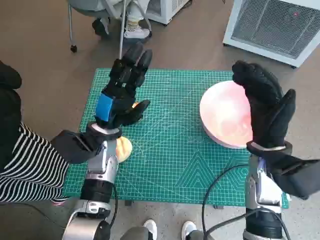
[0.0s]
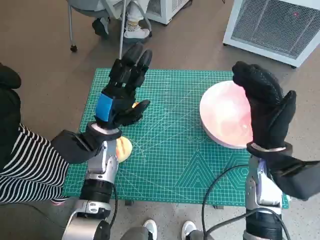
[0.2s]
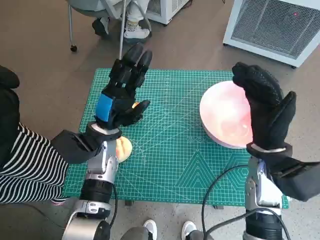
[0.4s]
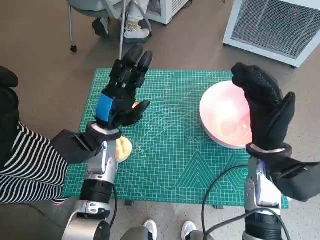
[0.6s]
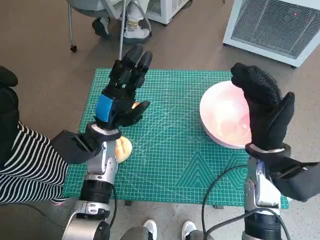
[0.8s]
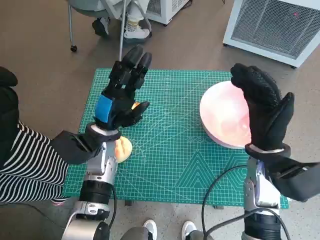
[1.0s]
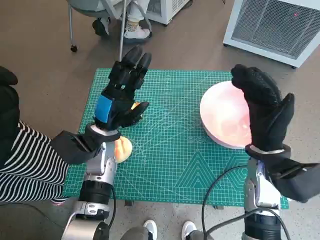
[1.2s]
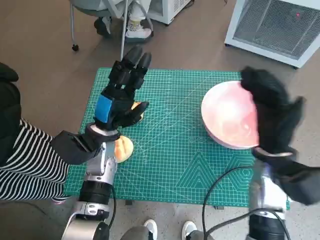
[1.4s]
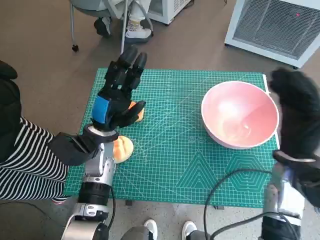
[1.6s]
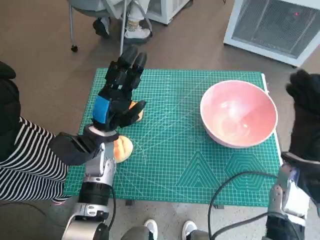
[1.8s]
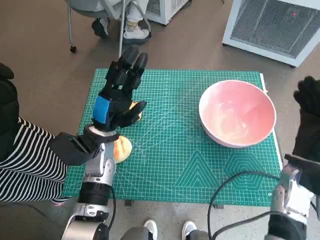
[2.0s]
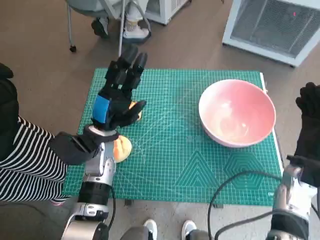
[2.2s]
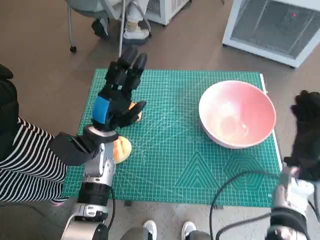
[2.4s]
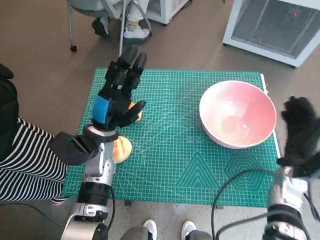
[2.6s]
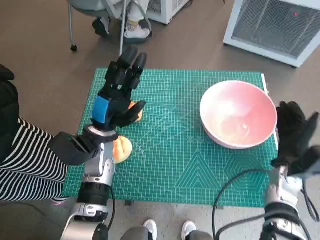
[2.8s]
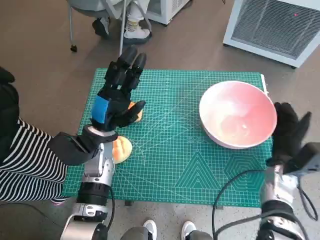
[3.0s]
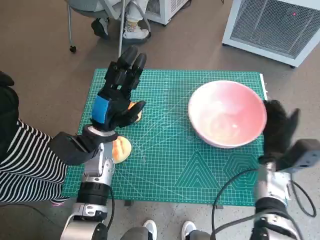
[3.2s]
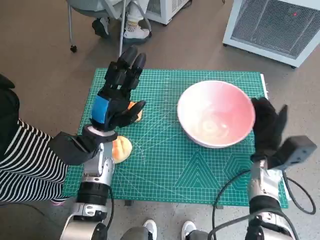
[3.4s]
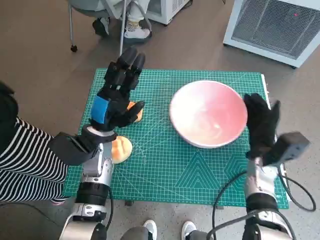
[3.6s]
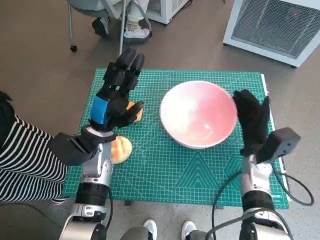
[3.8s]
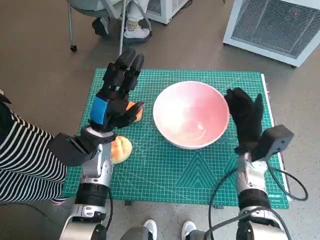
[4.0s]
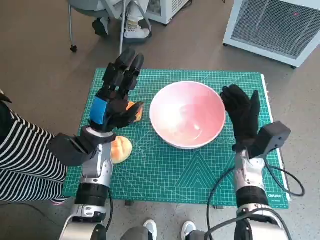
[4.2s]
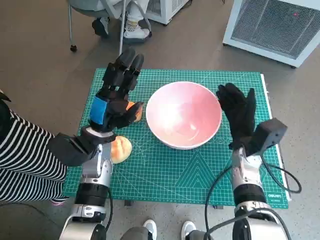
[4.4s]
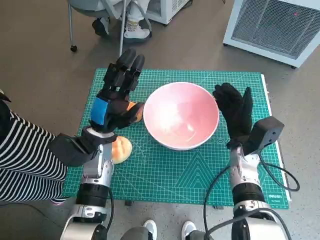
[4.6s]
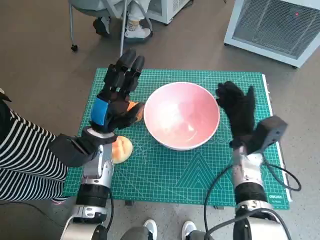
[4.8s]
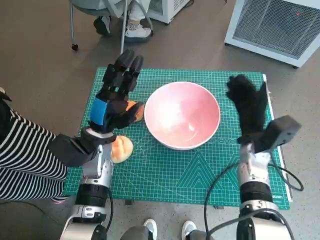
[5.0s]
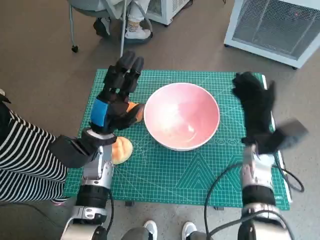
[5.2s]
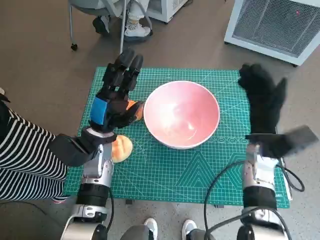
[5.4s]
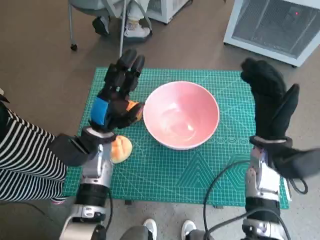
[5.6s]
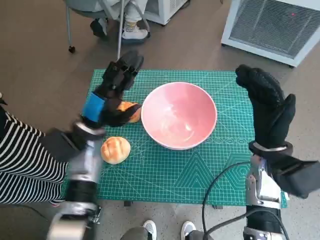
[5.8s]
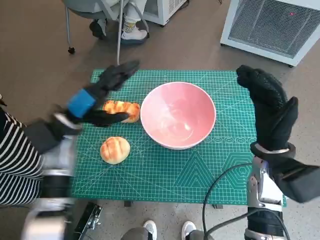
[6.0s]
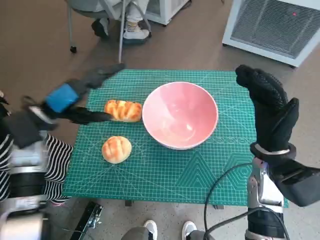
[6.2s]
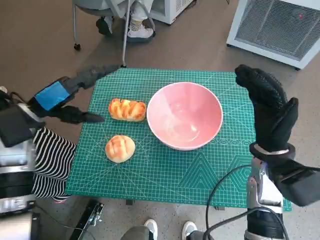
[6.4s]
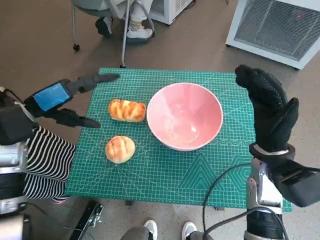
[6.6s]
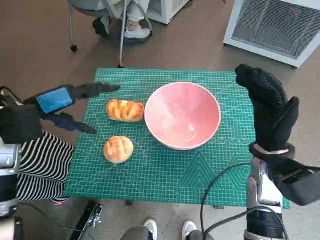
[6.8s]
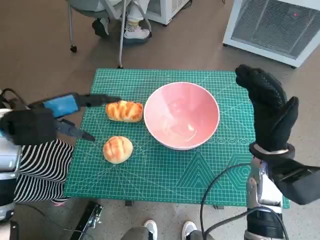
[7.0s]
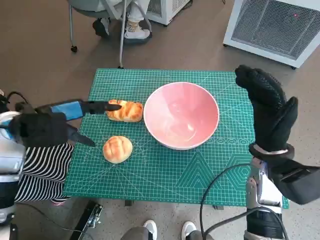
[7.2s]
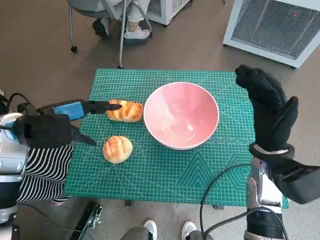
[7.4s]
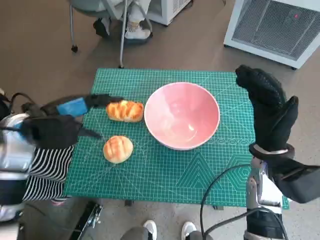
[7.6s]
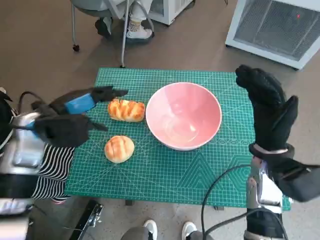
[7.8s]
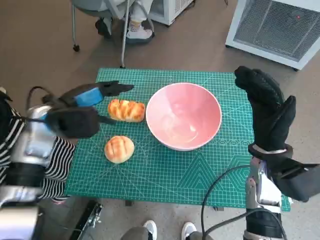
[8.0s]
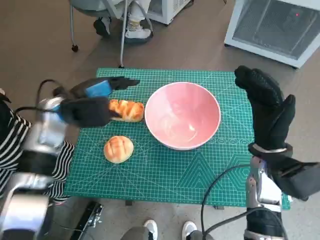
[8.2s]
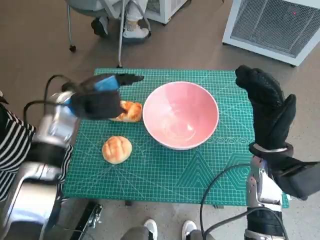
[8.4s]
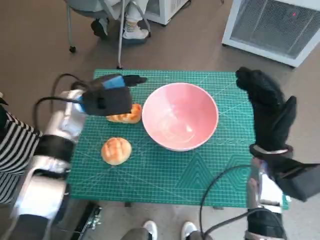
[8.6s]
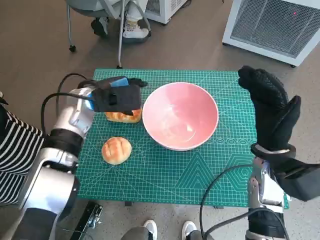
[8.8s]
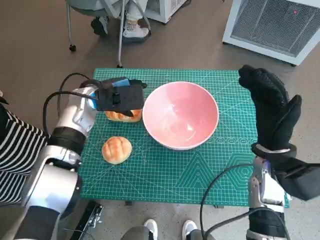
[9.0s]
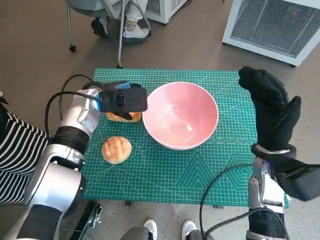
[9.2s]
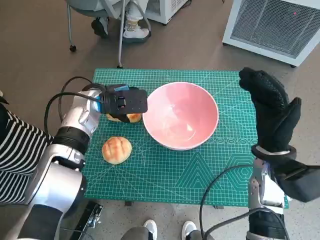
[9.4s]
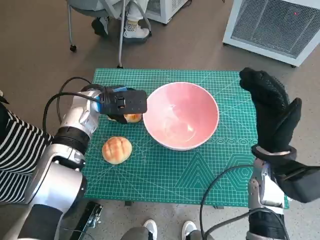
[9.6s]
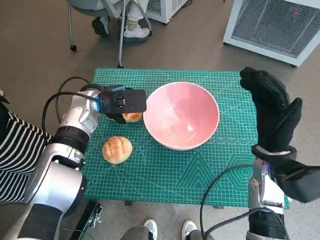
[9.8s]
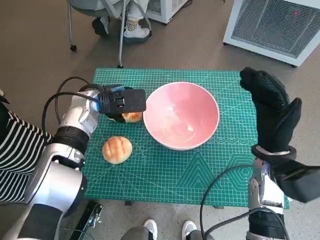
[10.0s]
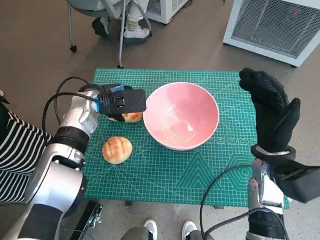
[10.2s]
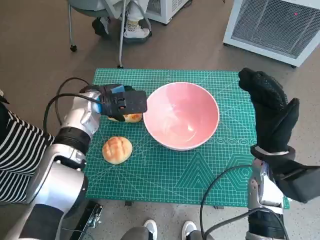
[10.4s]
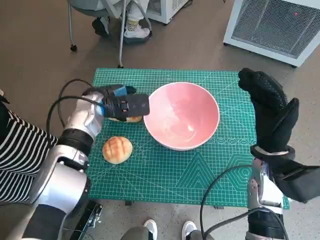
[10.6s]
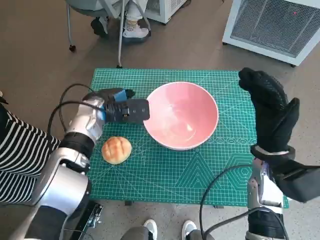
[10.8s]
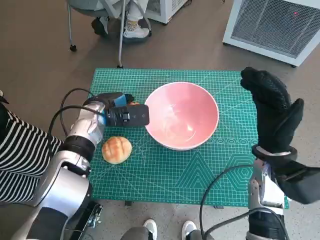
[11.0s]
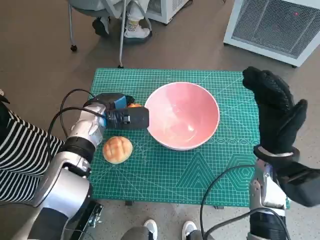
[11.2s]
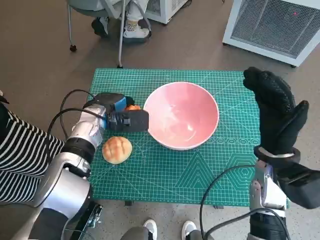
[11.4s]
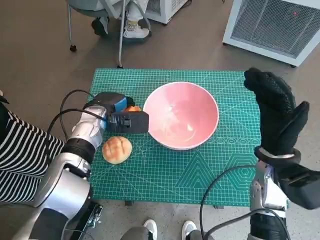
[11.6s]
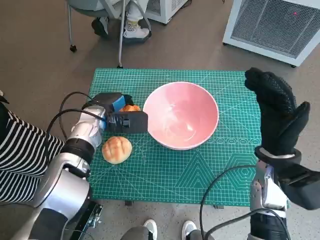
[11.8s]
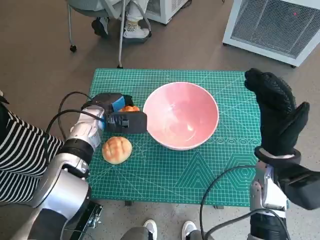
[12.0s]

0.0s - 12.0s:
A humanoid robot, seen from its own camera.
Task of the whole recording: Push the bowl into the center of the table and put the bread into the bowl.
Step, 0.0s - 5.0s: Move the pink bowl to the center of table with right hand.
Step, 5.2s - 11.4s: Grasp the long bread with left hand.
1.6s - 3.0s: The right hand moves downward, about 10 cm.
3.0s - 4.4s: The right hand travels to the left by roughly 10 cm.
4.4s - 6.0s: The right hand shifts some 10 cm upward. Meanwhile the left hand ends up about 5 cm from where it was.
6.0s - 7.6s: The left hand shifts roughly 5 cm upward.
7.6s - 9.0s: The left hand is displaced forward and to the right by about 10 cm.
9.0s - 10.4s: There are only small adjustments of the hands.
10.4s - 12.0s: There are only small adjustments of the hands.

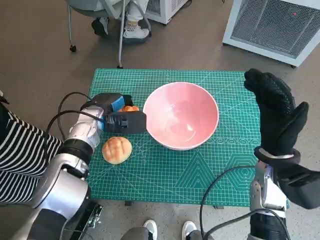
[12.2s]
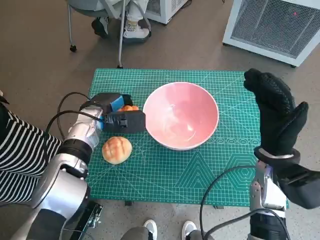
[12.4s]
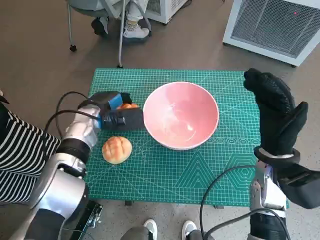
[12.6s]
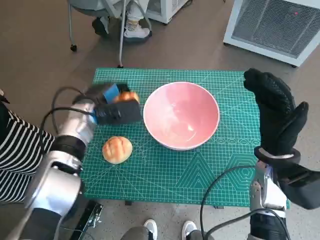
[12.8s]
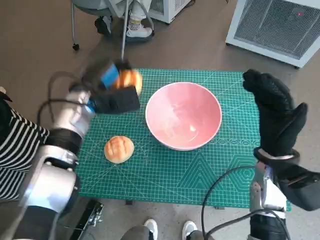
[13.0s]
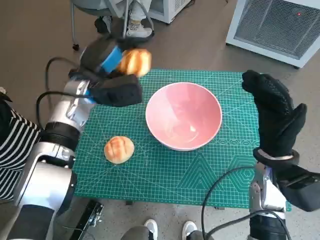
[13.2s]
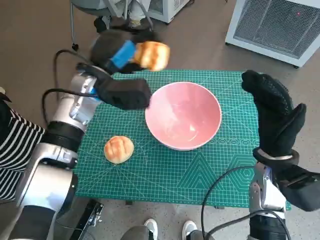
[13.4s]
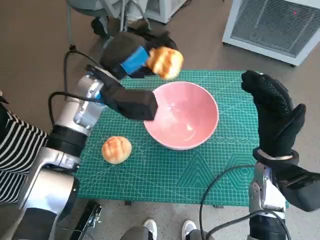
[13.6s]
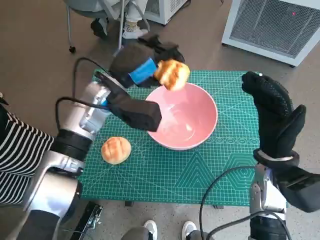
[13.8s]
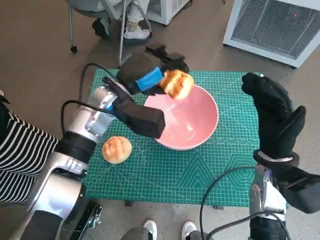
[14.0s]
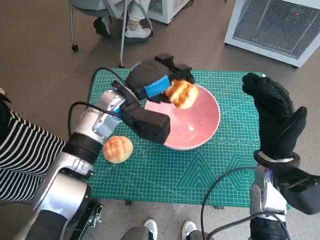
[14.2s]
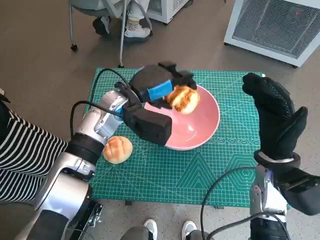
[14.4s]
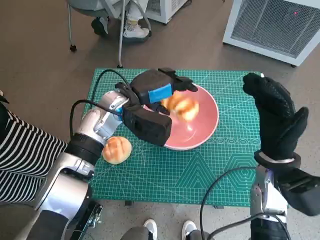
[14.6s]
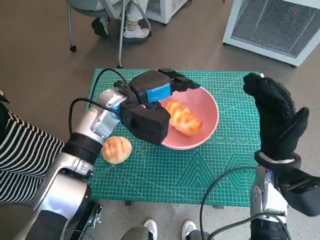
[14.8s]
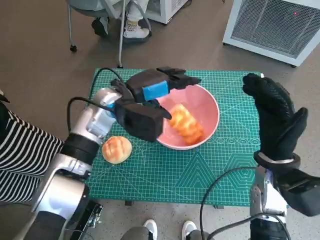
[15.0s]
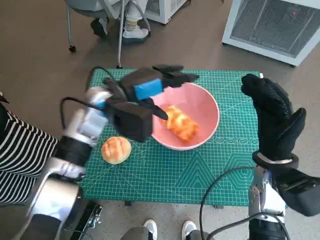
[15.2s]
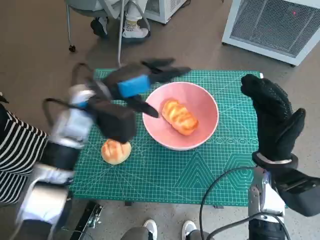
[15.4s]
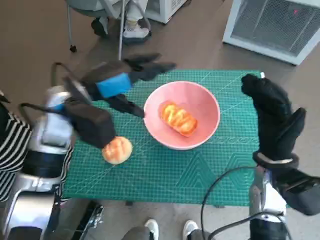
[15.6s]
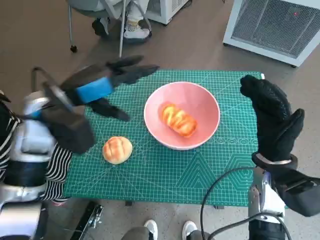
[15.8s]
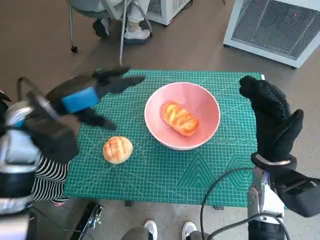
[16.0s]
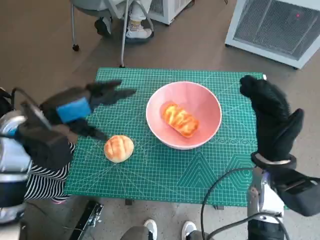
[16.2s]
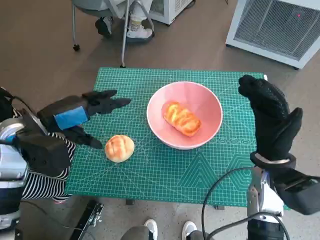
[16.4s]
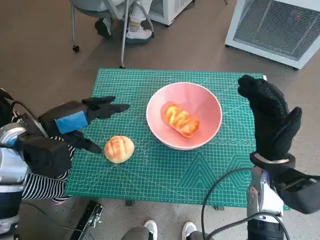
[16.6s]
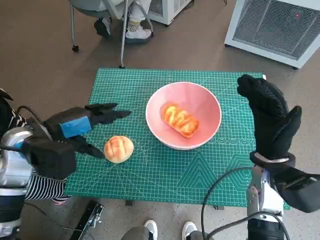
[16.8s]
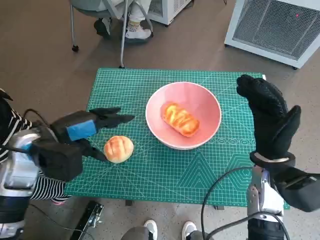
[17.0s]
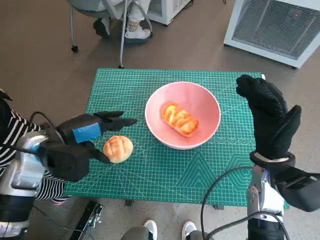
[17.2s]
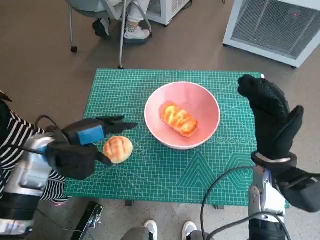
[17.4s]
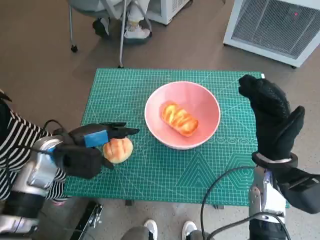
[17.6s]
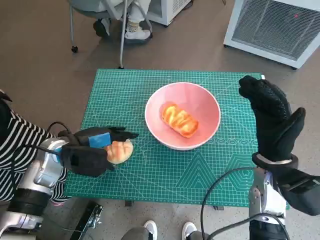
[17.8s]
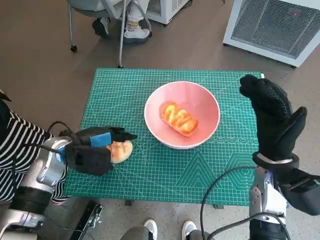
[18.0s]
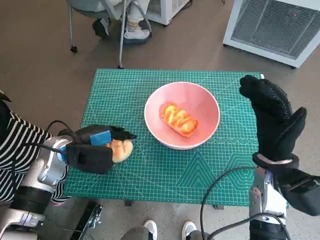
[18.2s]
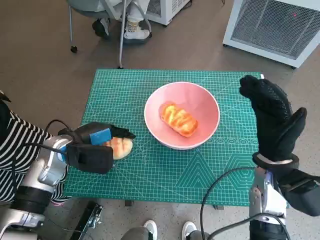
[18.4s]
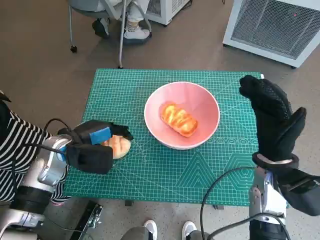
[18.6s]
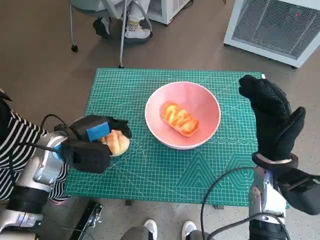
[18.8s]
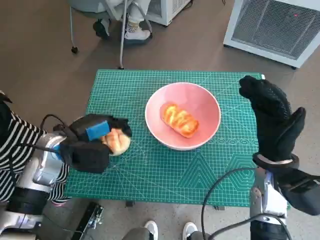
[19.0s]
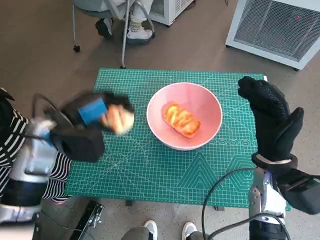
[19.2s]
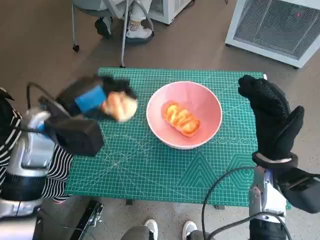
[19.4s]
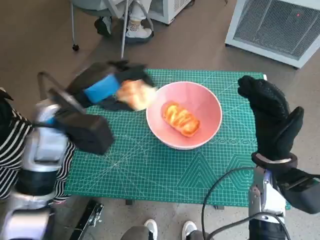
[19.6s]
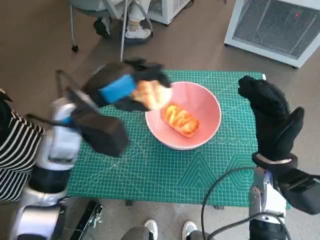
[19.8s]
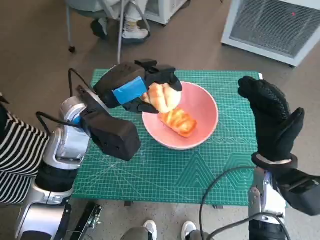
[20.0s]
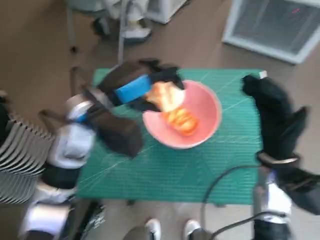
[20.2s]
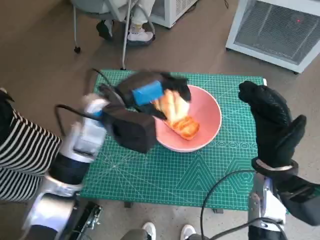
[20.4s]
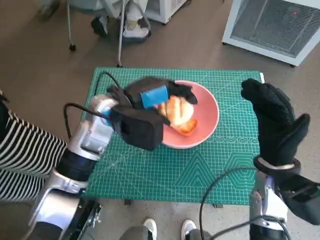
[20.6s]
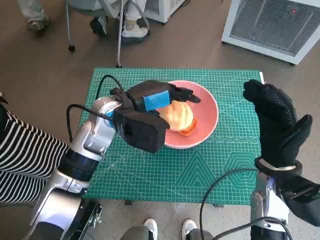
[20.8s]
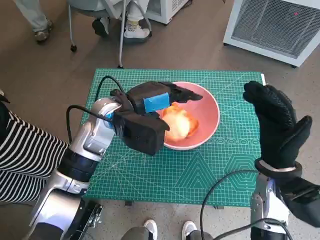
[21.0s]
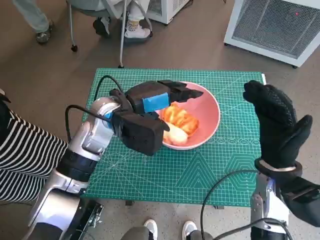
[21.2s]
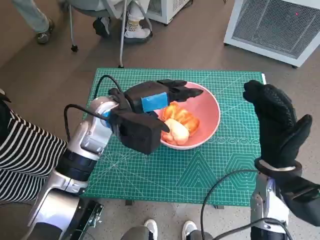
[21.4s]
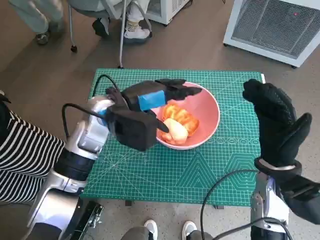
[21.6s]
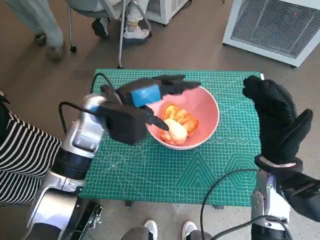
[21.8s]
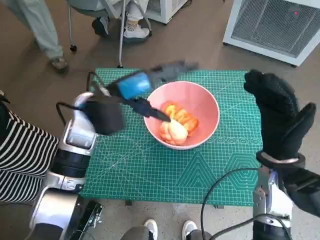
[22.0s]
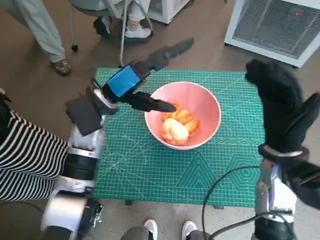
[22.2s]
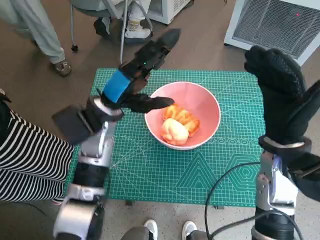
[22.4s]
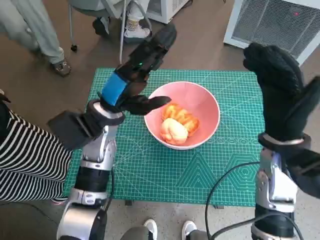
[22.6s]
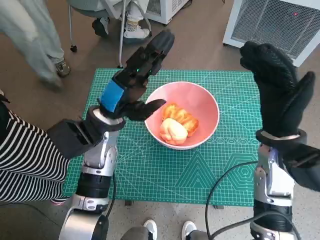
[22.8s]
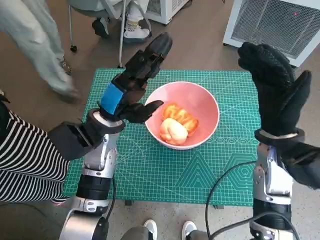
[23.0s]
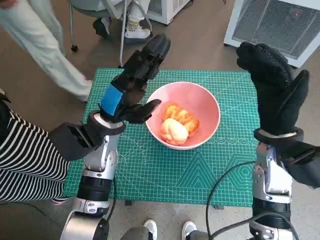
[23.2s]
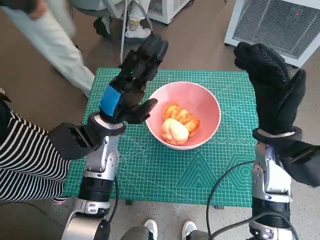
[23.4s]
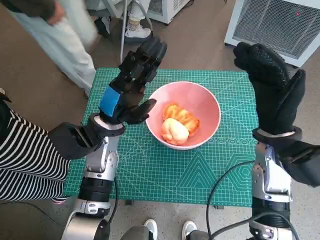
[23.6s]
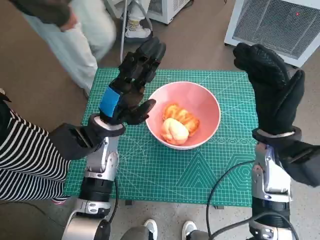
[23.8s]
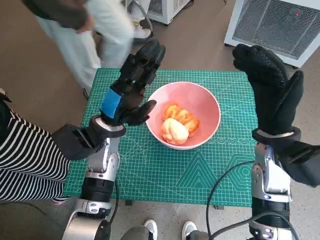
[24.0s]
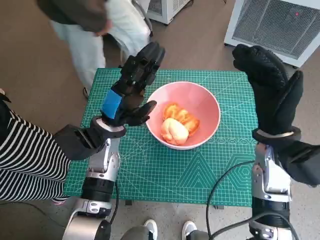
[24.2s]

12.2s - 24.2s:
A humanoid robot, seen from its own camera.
Task of the whole recording: Push the bowl into the center of the table and put the bread into the bowl.
Step, 12.2s - 15.6s: Place the long bread in pink bowl with left hand.
Step, 15.8s - 18.6s: Grasp the round bread with left hand.
Step, 18.8s - 21.8s: Place the round bread in pink bowl with left hand.
12.2s - 13.8s: The left hand travels upward and to the right by approximately 10 cm.
15.2s - 16.6s: The left hand shifts some 15 cm to the left and backward.
16.6s - 18.2s: The left hand is displaced downward by some 10 cm.
18.2s - 19.8s: The left hand goes about 15 cm upward and to the right.
19.8s - 21.2s: The left hand goes some 5 cm to the right.
21.2s - 22.6s: The right hand moves about 5 cm.
